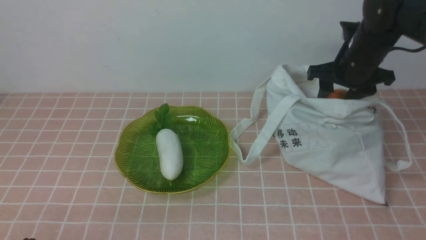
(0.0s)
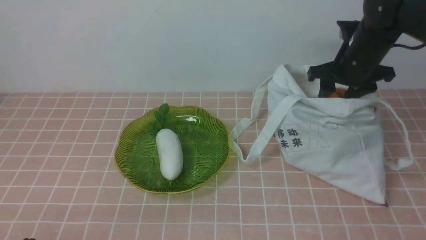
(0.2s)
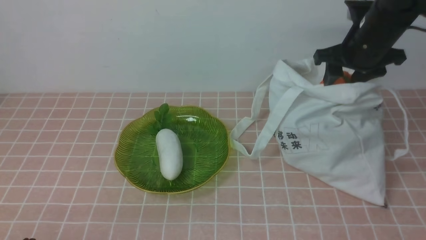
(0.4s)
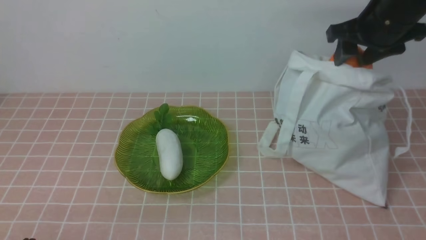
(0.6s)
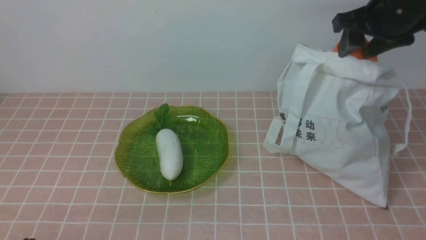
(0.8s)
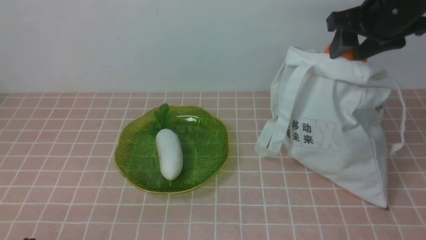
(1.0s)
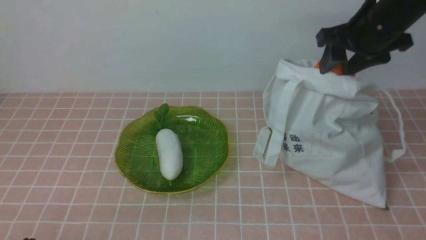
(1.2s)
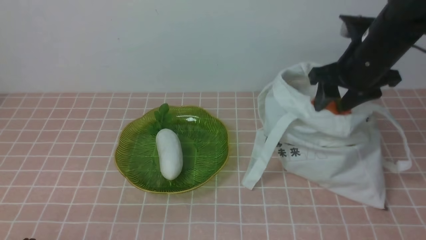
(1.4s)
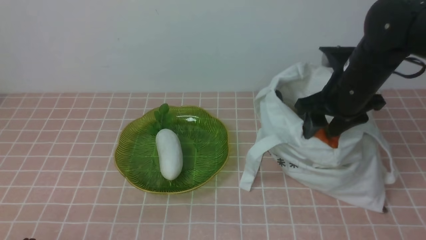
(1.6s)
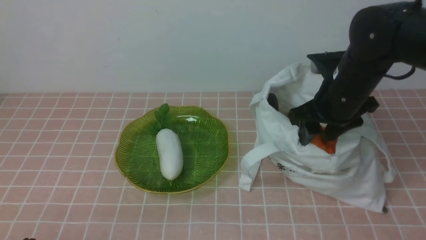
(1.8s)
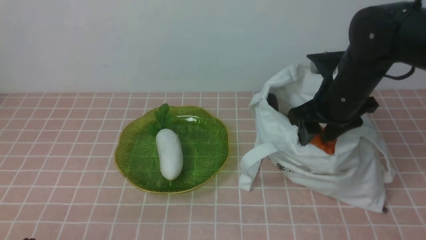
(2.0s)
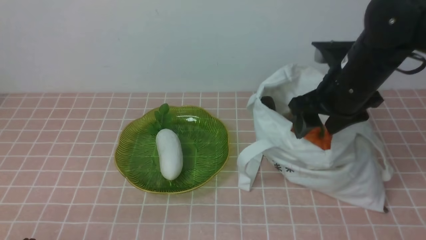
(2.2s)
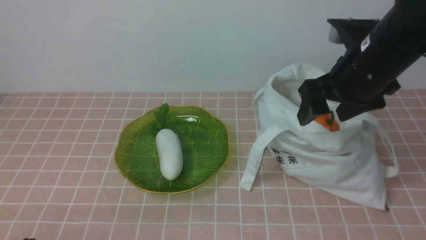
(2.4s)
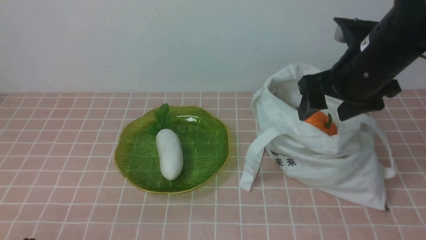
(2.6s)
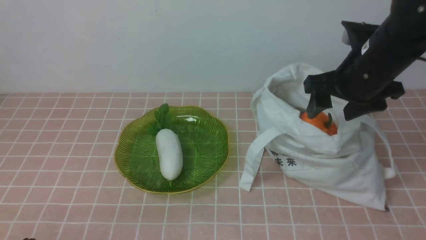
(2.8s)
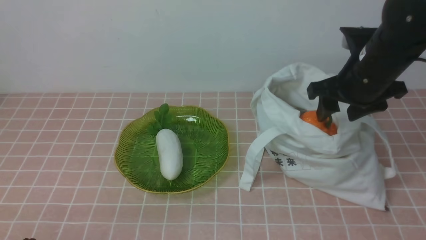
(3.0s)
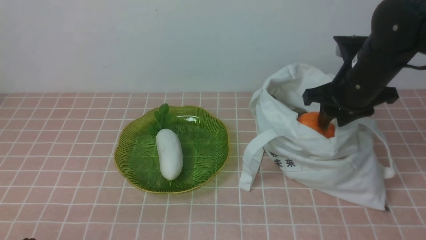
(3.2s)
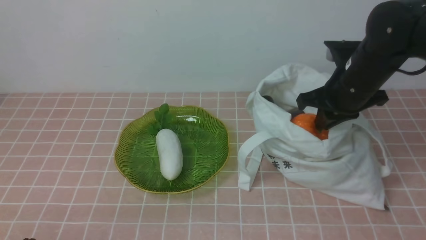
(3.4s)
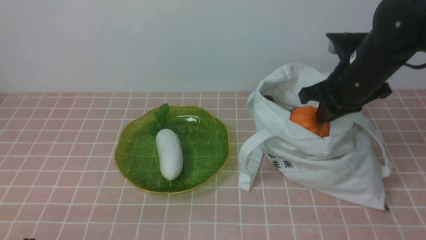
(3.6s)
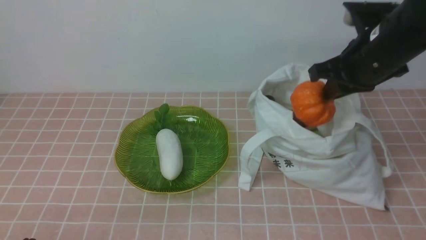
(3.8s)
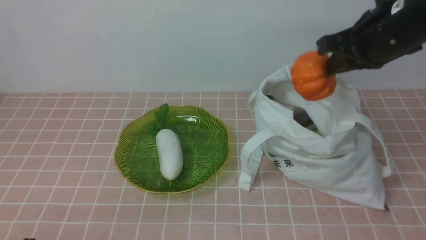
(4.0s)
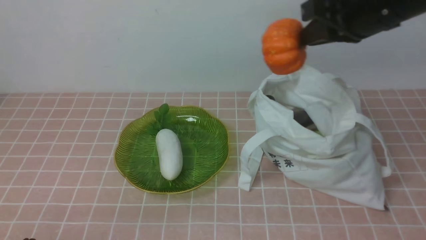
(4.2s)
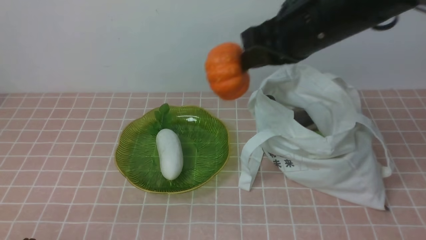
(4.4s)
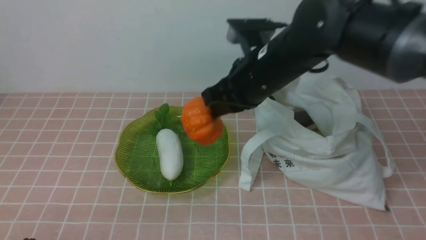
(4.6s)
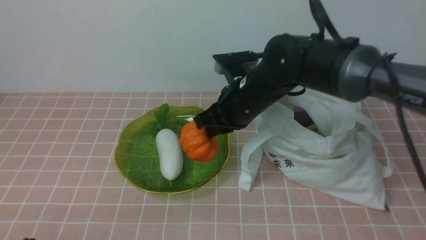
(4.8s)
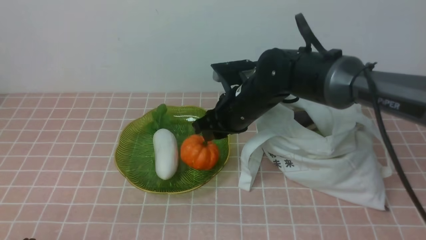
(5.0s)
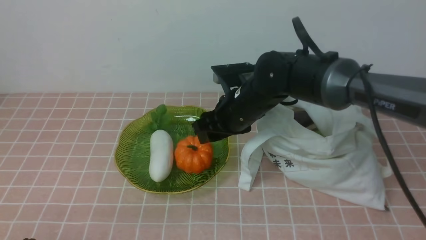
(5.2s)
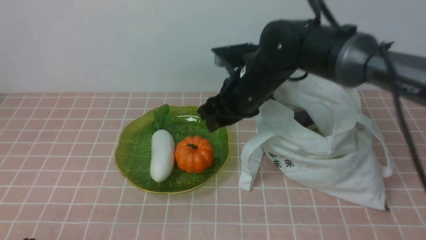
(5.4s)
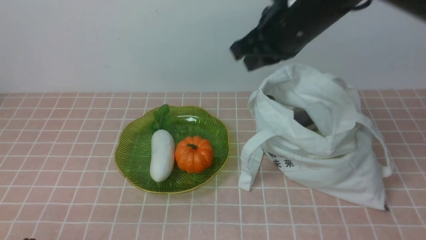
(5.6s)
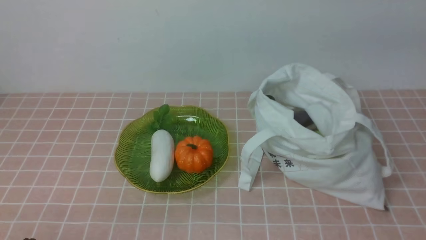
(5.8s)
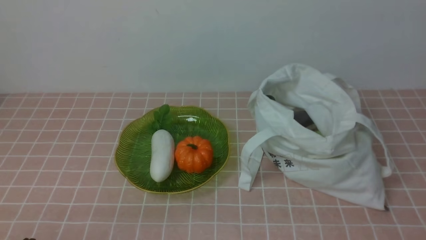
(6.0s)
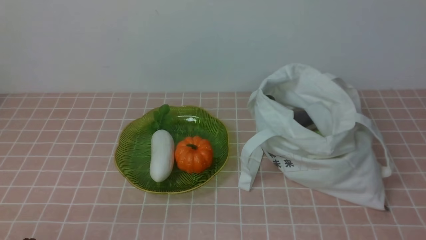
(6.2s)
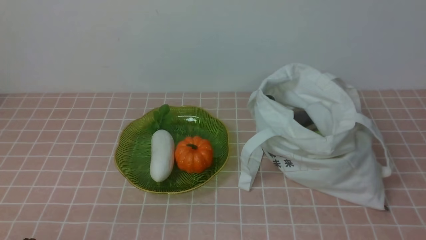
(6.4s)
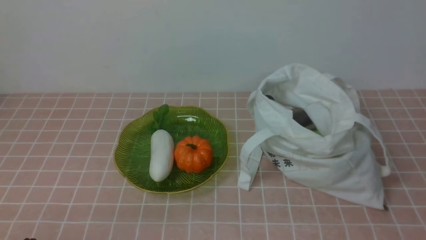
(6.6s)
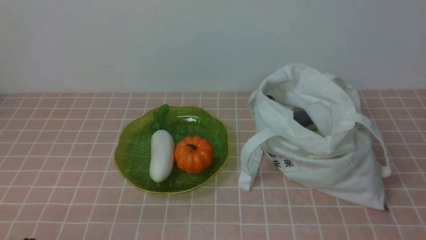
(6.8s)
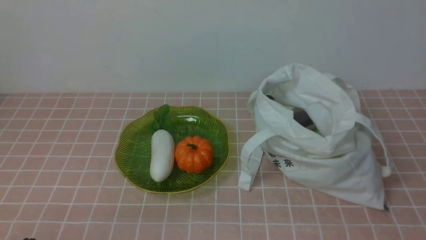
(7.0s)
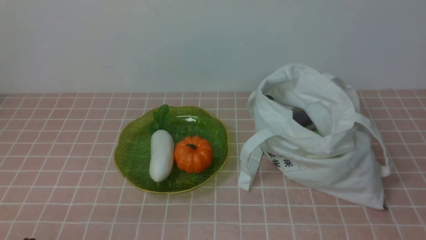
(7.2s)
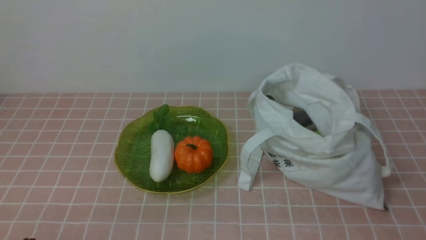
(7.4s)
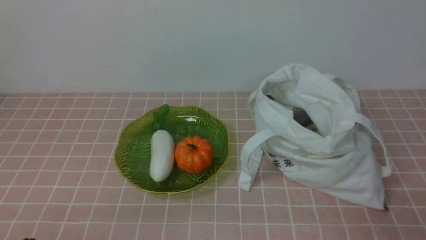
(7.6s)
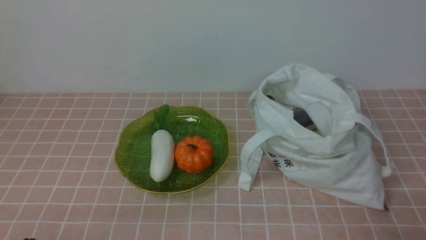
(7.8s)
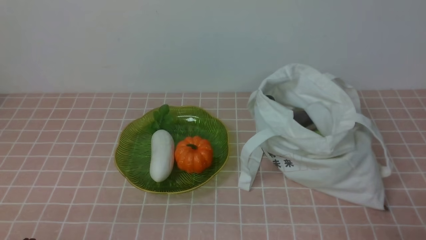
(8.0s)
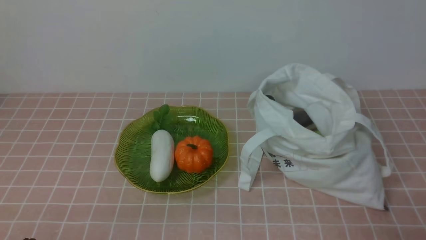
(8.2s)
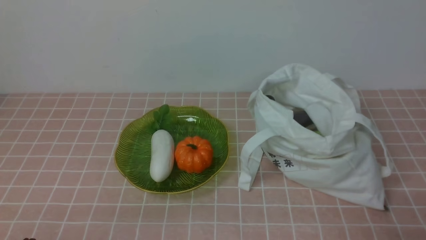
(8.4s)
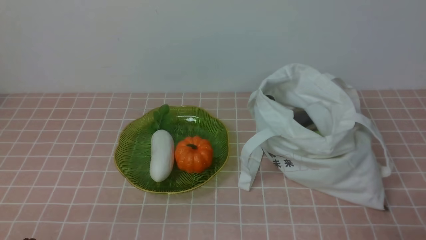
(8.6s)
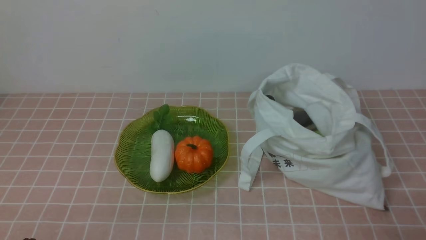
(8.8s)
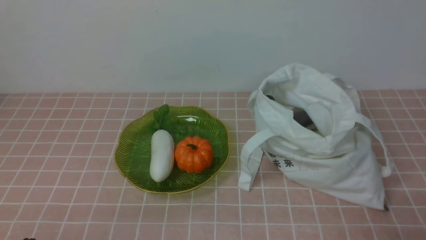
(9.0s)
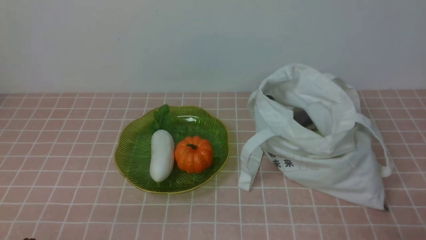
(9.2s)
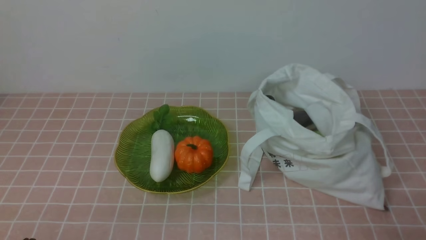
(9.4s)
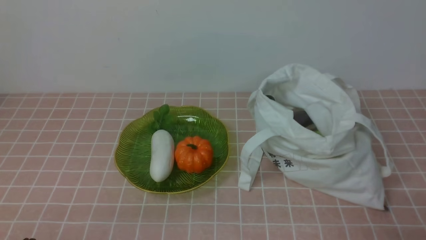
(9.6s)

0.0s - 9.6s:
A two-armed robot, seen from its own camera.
Task of the whole recording: take vegetables from bag on pink coffee tablecloth place on plate.
Step, 0.0s - 3.4s: Grasp the pumpkin with right gripper.
Step, 3.6s - 5.4s: Place the pumpkin on the plate with right gripper.
0.0s - 1.6s: The right gripper travels backward by some 5 cm, and travels upward and back again, approximately 10 cm each way.
1.6s - 3.2s: The grippers stay close to where they were, moving slightly.
3.2s - 4.8s: The right gripper heads to the left, covering some 15 cm.
4.8s - 6.4s: The right gripper shifts roughly 40 cm backward and to the right, and opens, then closes once more.
8.0s - 9.6s: Neither gripper changes place.
